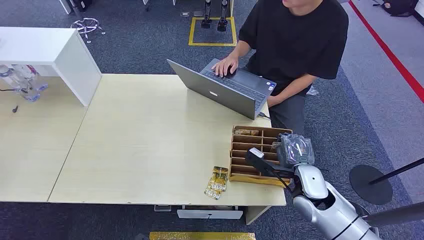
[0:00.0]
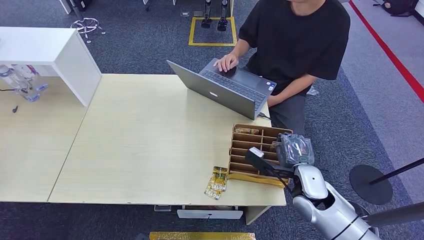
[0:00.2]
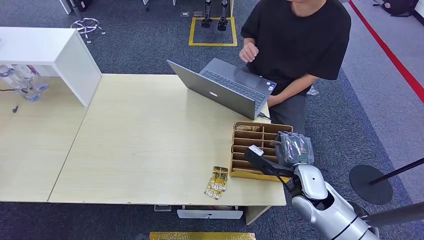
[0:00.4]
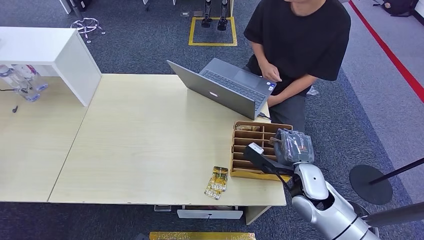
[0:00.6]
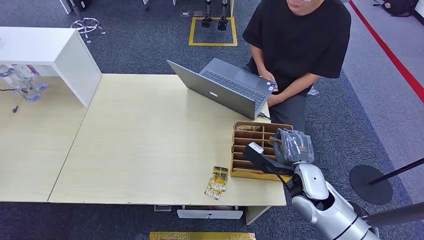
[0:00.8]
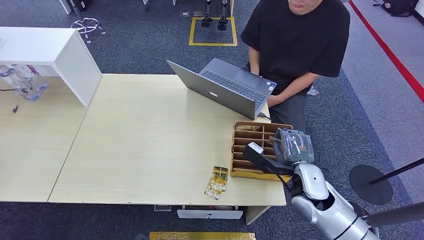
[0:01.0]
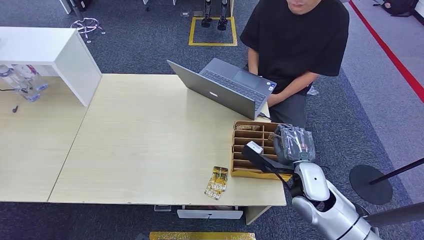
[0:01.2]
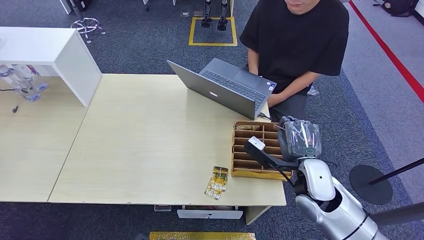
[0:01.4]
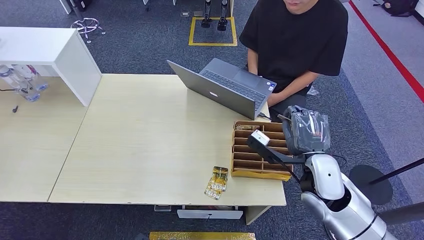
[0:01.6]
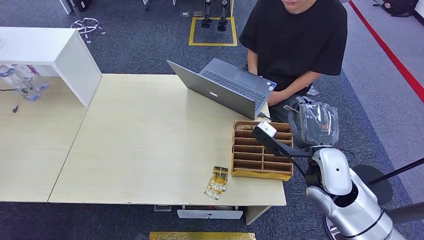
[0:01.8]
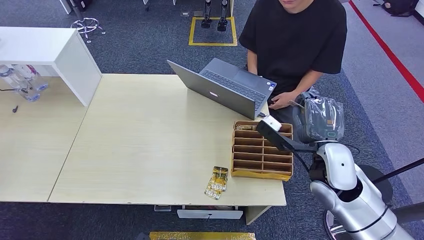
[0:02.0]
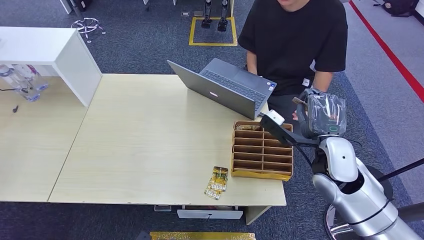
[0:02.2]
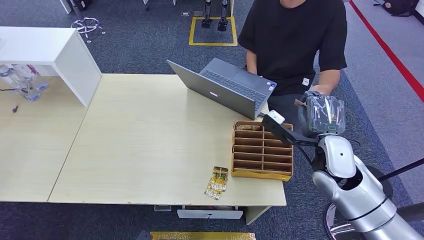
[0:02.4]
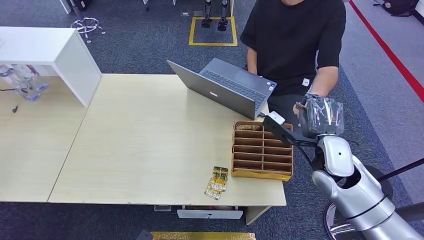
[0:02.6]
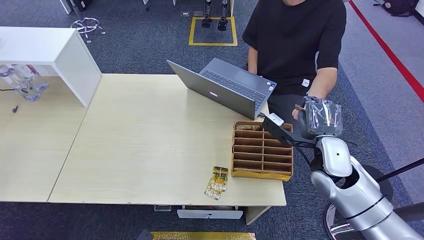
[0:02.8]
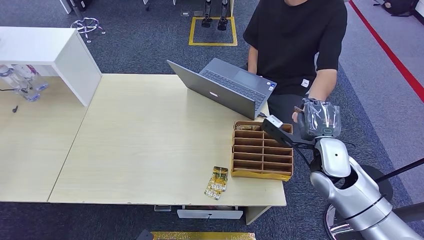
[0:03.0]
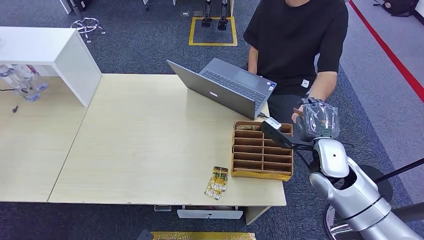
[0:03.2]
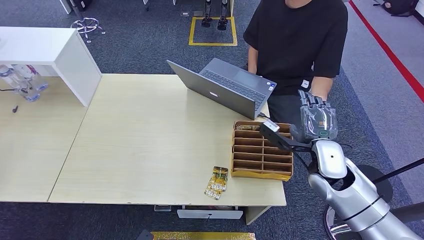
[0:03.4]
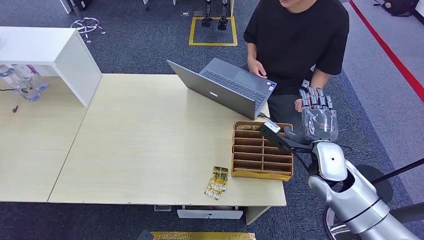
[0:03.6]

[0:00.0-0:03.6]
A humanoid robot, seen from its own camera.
Step, 0:00.0 to 0:02.0: Pick up the room card from the card holder.
Step, 0:02.2 to 0:03.6: Hand the room card to the target.
0:01.8 to 0:03.6: The right hand moves roughly 5 cm.

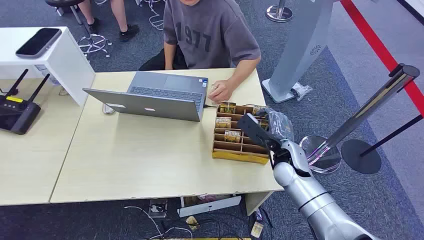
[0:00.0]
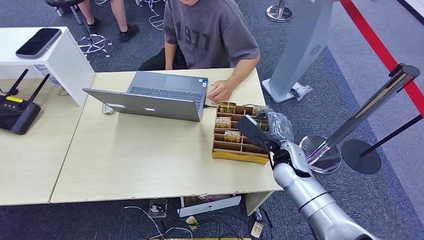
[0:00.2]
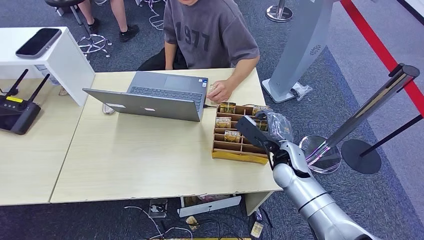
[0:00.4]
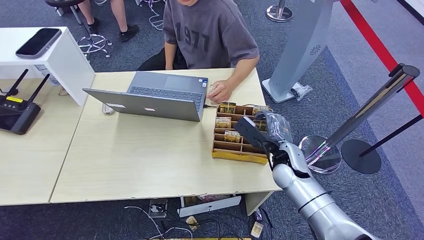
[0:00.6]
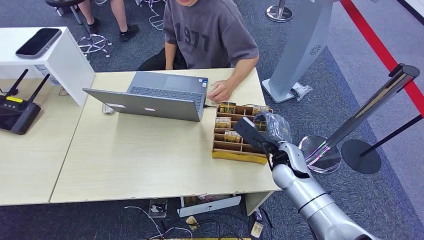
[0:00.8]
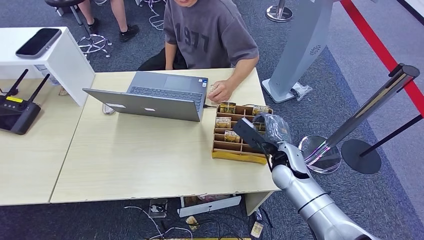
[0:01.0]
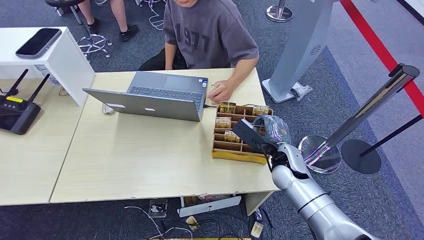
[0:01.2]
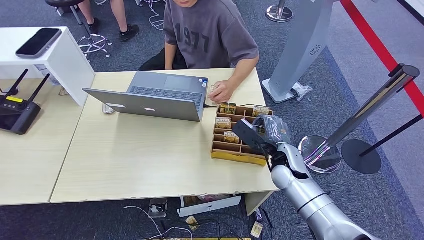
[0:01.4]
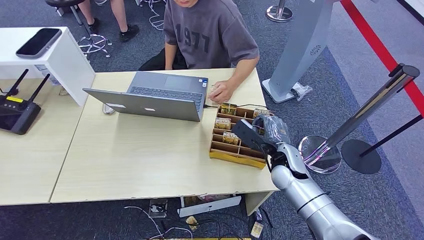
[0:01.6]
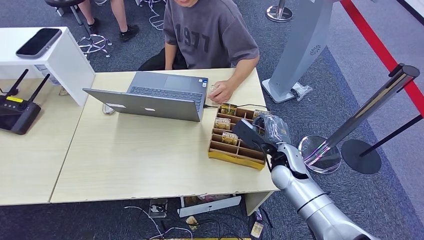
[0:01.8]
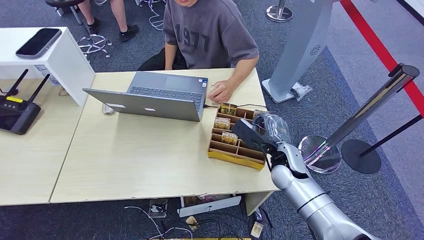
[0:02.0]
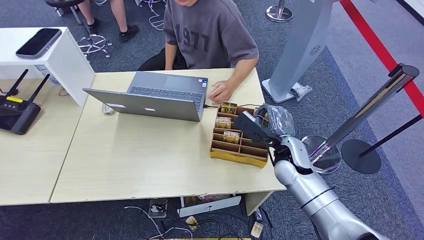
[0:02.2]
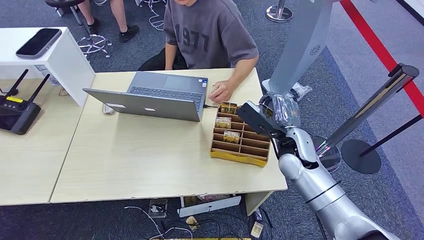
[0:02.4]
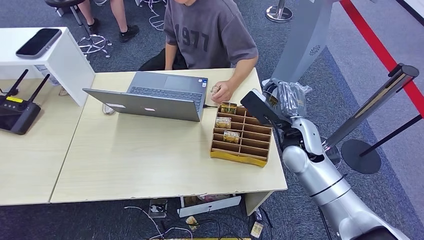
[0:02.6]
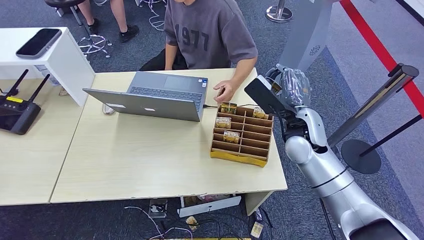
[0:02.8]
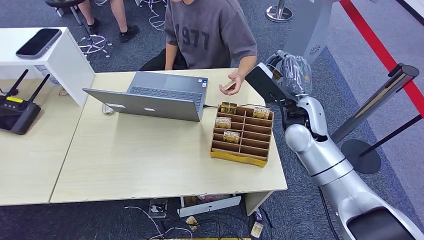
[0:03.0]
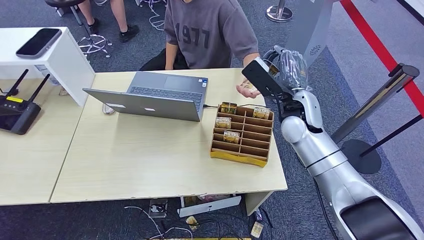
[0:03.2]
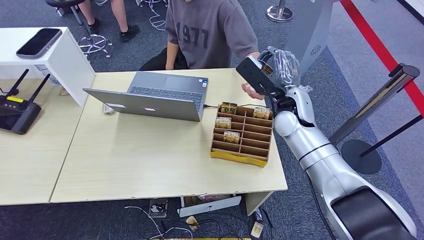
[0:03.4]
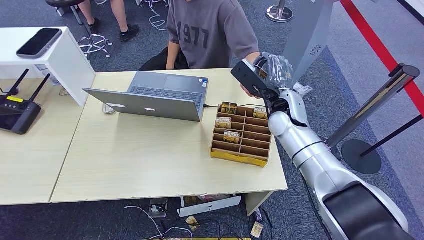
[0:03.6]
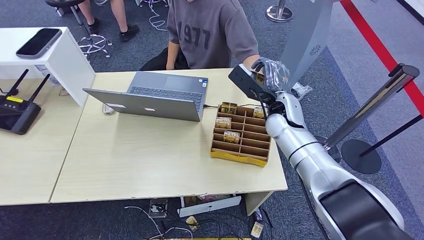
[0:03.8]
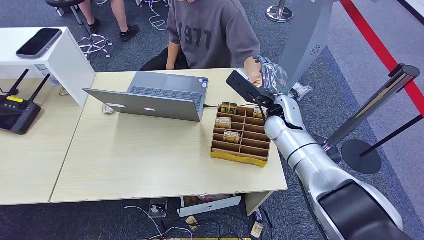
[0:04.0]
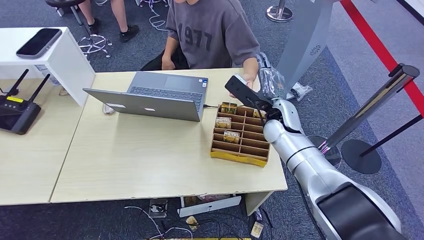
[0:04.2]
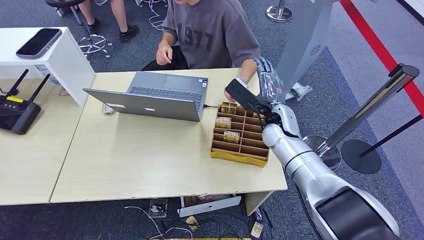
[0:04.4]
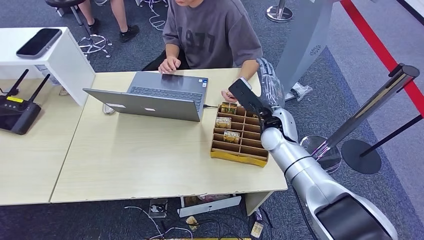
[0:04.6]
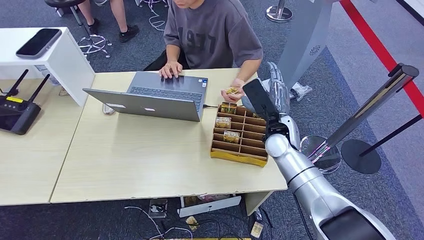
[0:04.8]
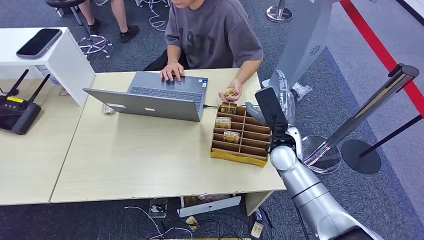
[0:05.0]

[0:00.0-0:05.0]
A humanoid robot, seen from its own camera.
Step, 0:00.0 to 0:03.0: Pick up the room card from the card holder.
Step, 0:03.2 to 0:04.8: Hand the room card to the target.
0:01.6 to 0:03.4: The right hand moves upward and forward, roughly 15 cm.
0:03.4 to 0:05.0: The right hand goes approximately 10 cm downward and backward.
